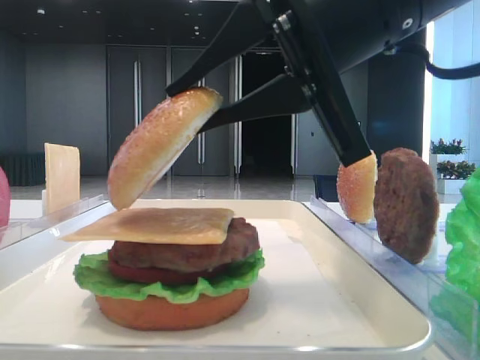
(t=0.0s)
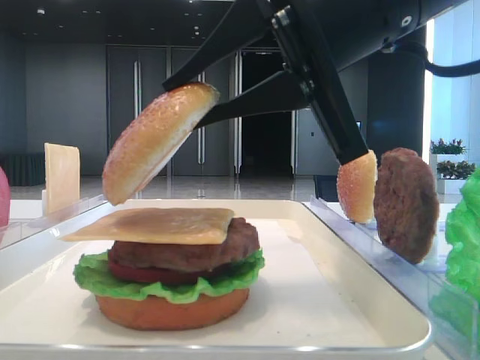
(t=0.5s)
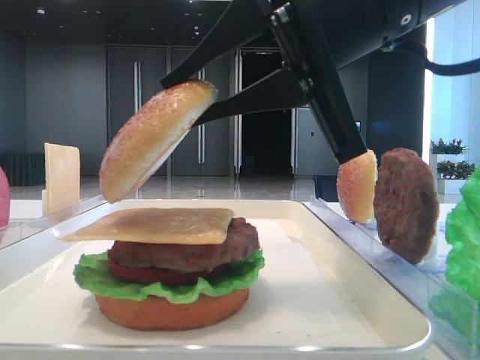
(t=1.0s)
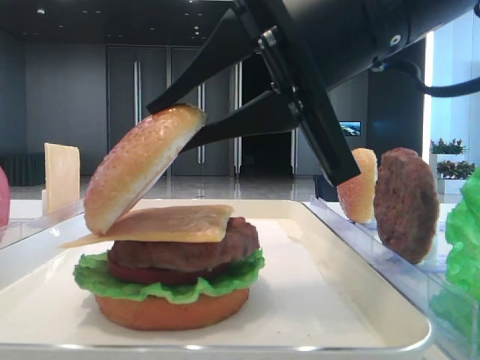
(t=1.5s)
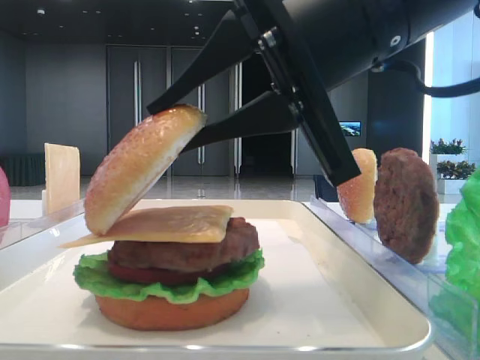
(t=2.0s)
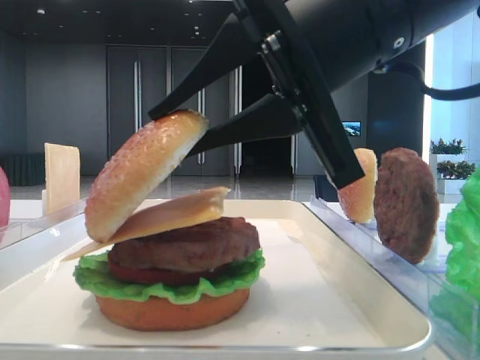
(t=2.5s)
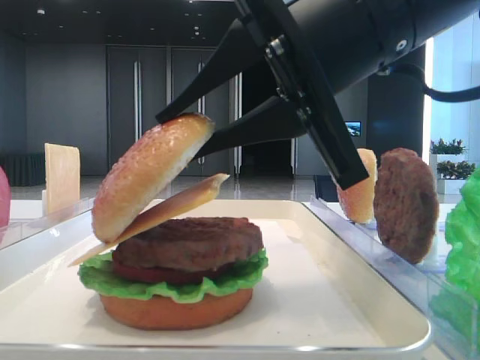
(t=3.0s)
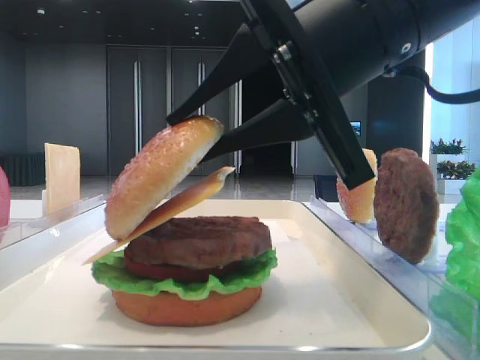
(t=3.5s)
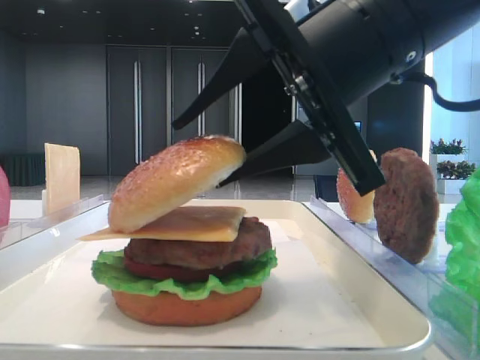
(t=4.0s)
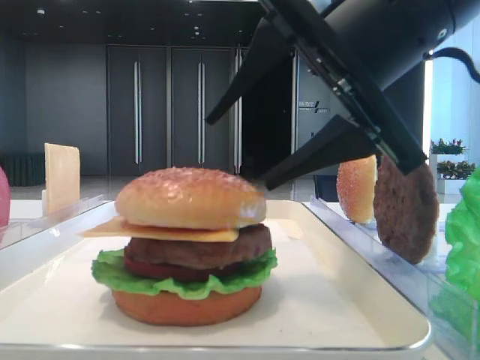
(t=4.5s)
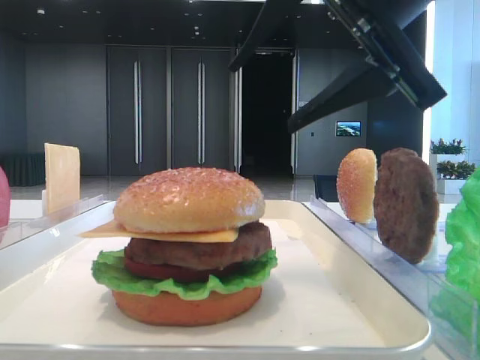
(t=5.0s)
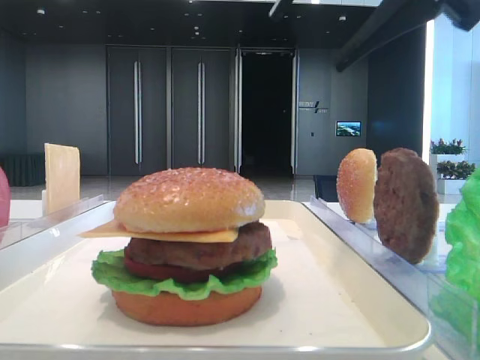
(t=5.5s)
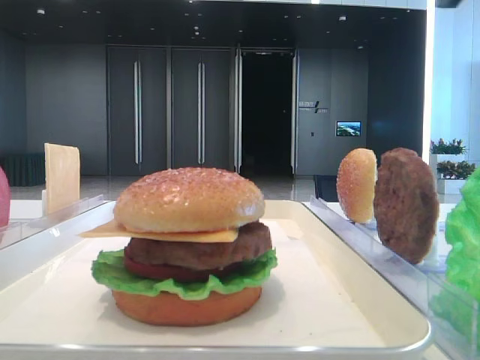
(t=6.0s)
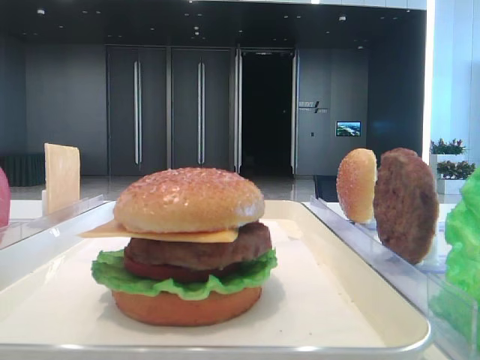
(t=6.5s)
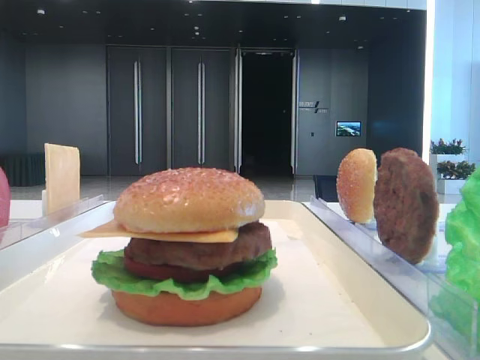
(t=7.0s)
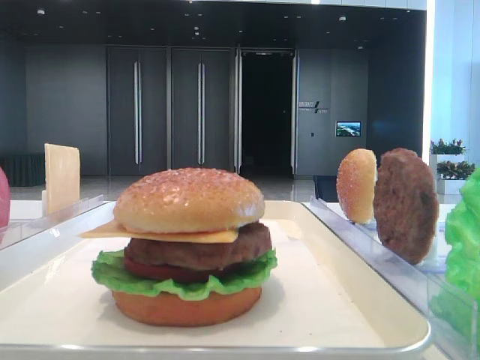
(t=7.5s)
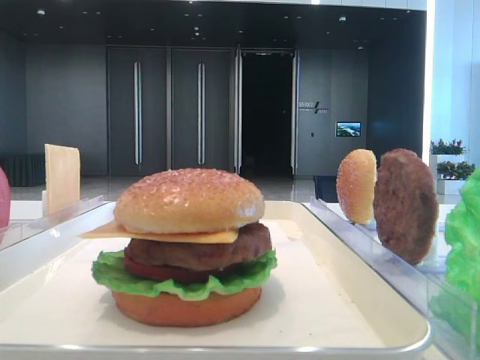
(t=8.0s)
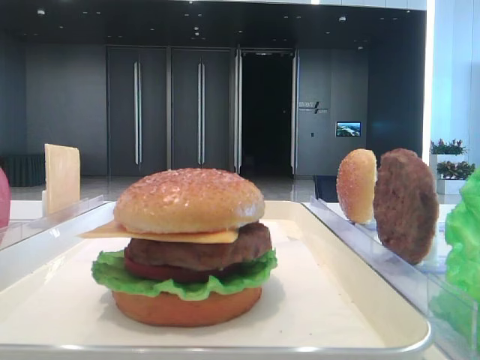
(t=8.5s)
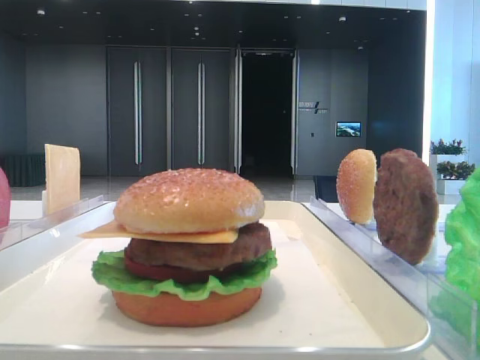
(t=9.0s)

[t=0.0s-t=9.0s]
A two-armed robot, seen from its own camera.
Step, t=0.0s to t=4.0s: Place the top bread slice on the cheese with the right hand.
t=0.0s to t=2.0s: The grippers stay close to where they were, moving slightly.
t=2.0s to t=4.5s: The right gripper opens.
t=4.5s to t=7.0s: The right gripper is displaced to the right and upward by some 25 cm.

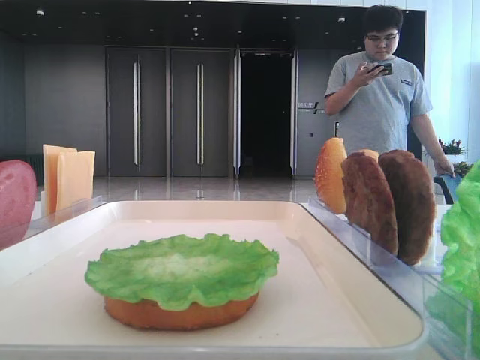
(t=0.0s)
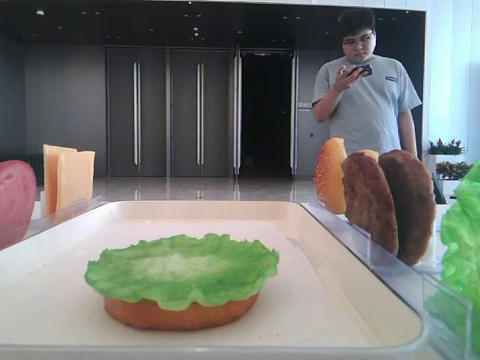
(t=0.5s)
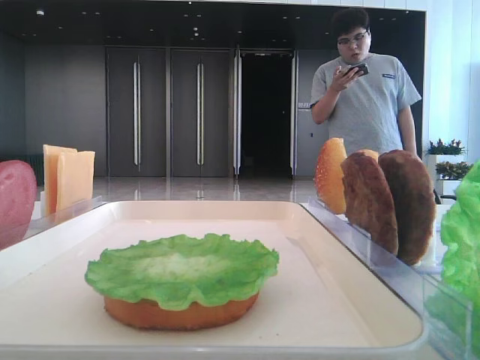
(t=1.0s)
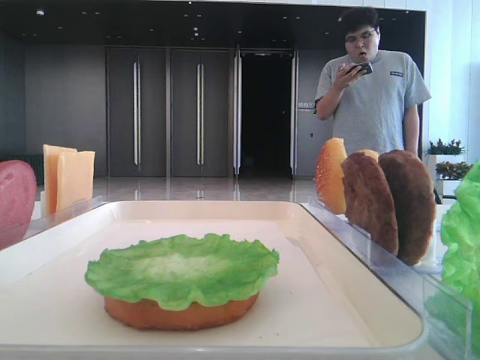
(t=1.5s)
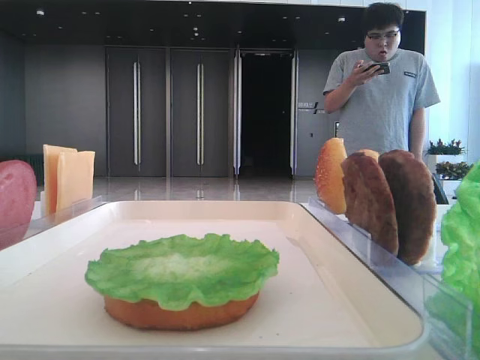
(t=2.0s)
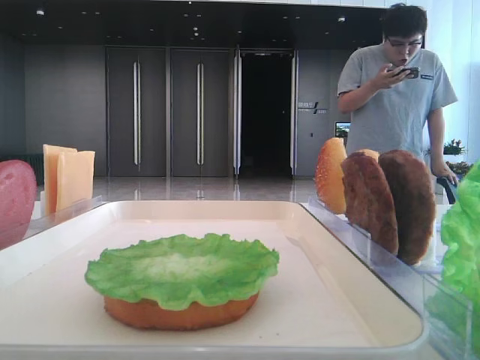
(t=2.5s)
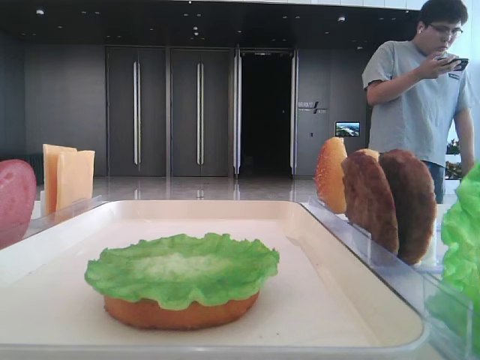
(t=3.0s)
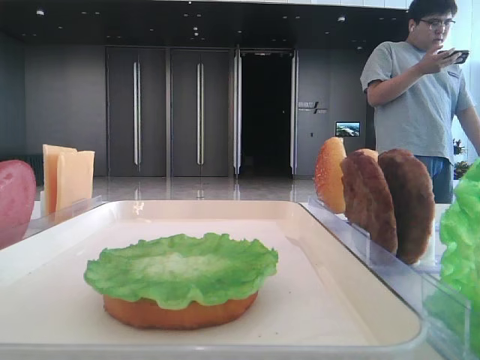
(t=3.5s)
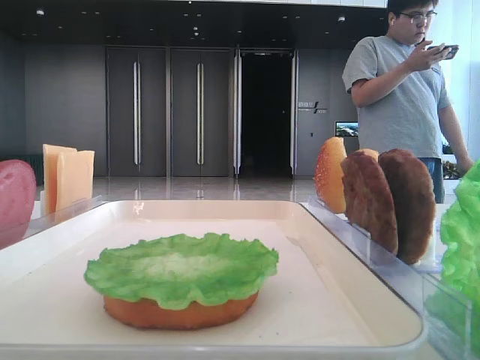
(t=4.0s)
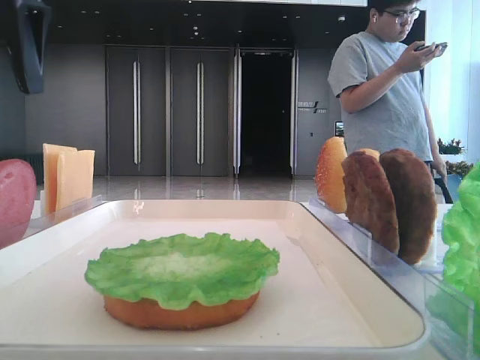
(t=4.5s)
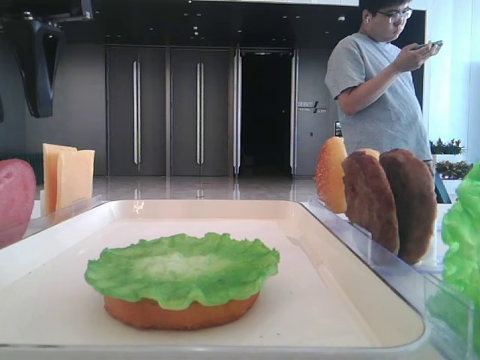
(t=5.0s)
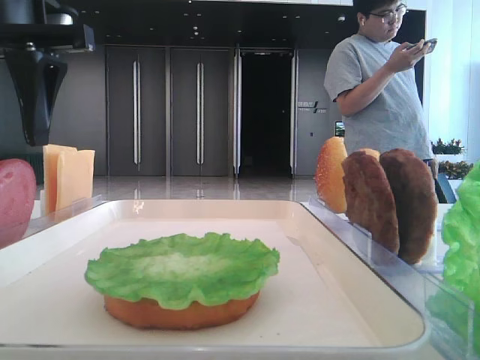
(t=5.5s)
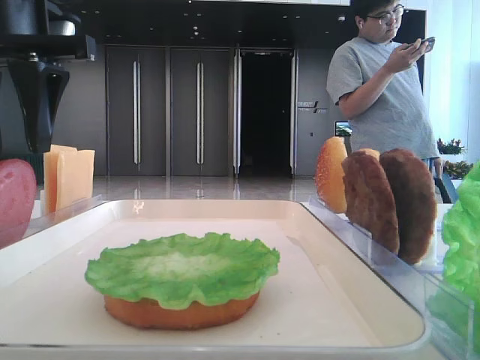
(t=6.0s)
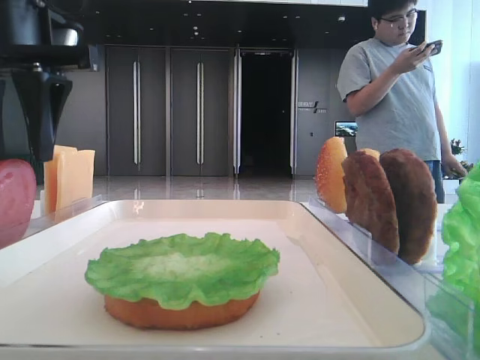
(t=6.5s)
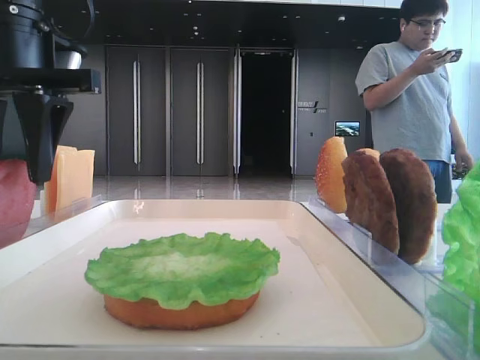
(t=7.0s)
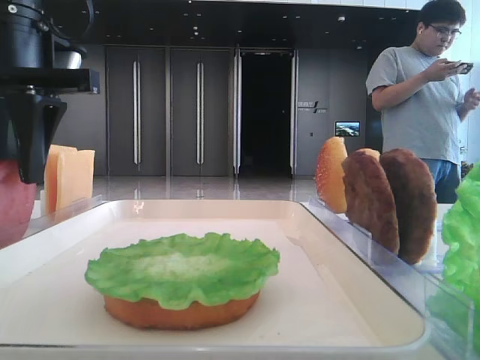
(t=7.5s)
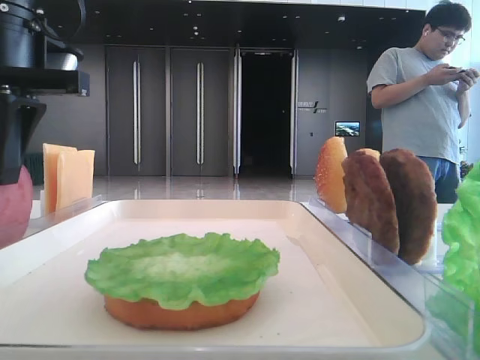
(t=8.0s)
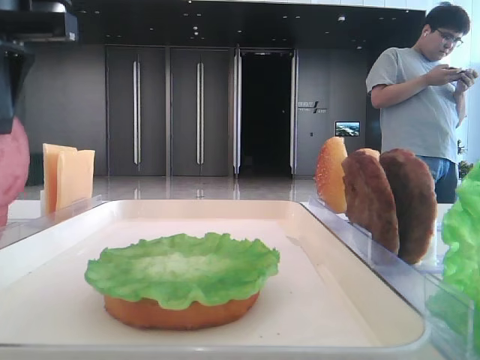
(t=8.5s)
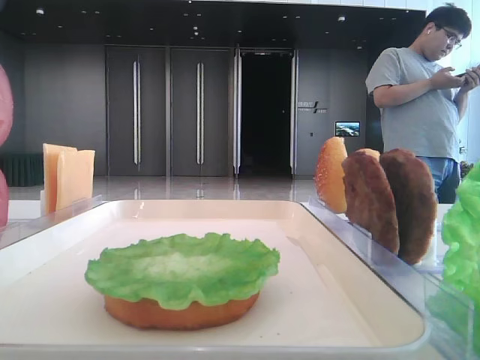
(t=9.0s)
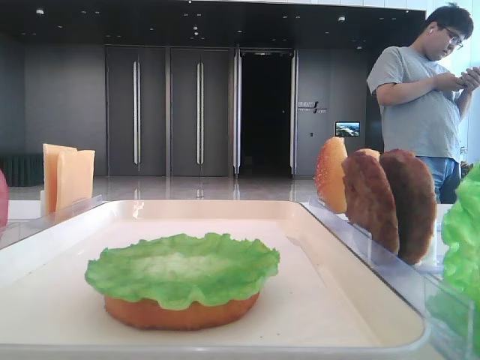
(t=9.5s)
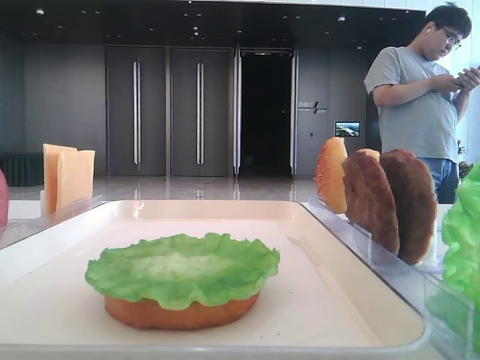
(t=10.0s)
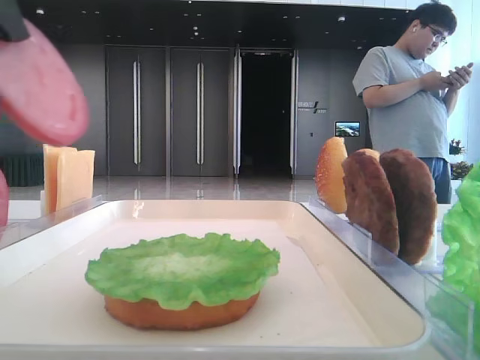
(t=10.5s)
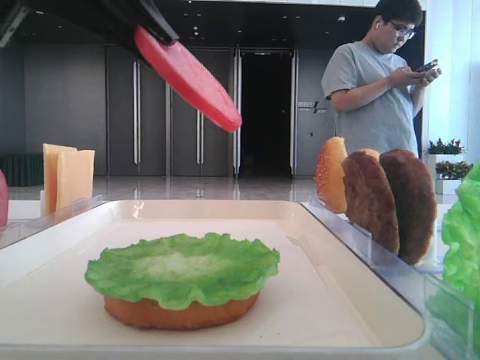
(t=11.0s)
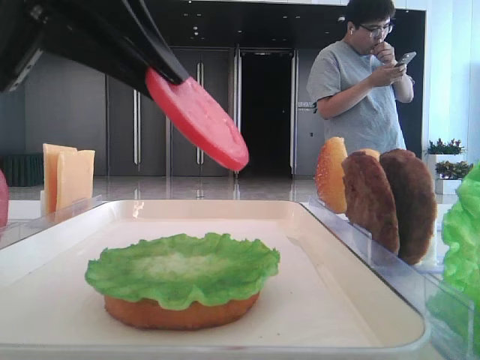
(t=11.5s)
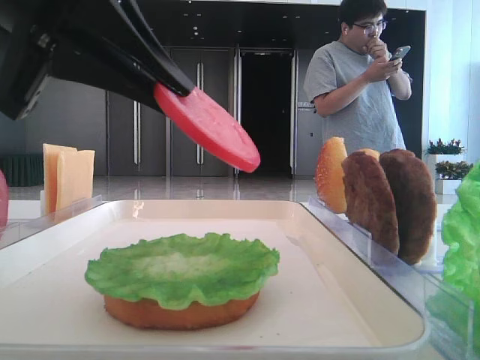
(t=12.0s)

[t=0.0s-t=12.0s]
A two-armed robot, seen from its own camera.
Step, t=0.0s to t=8.0s: Pick up the tomato slice with the left hand.
t=4.0s to t=6.0s: The left gripper travels to the right and downward by approximately 10 cm.
t=6.0s to t=8.0s: The left gripper closes its fingers.
t=8.0s to t=10.0s: The left gripper shifts roughly 15 cm backward and upward.
t=10.0s to t=12.0s: The left gripper shifts about 10 cm downward and to the right.

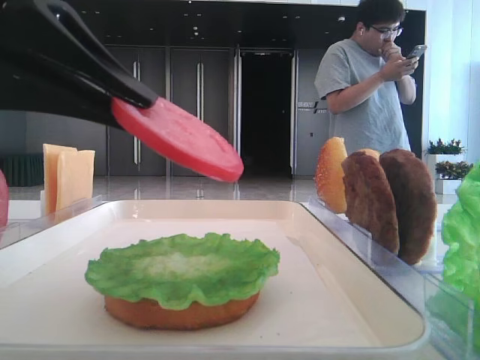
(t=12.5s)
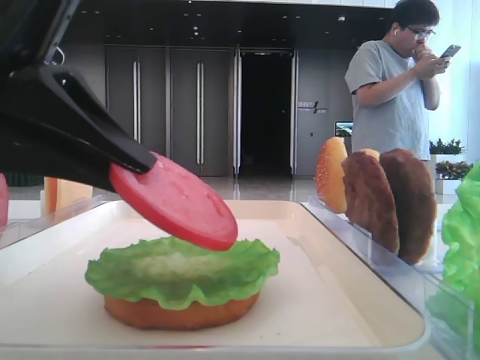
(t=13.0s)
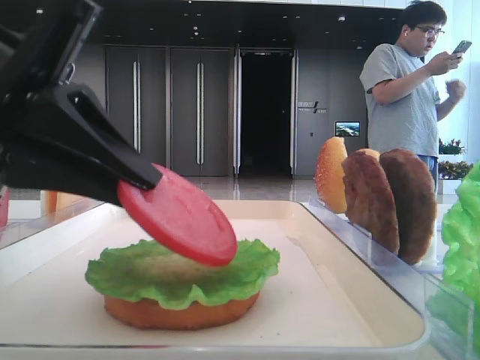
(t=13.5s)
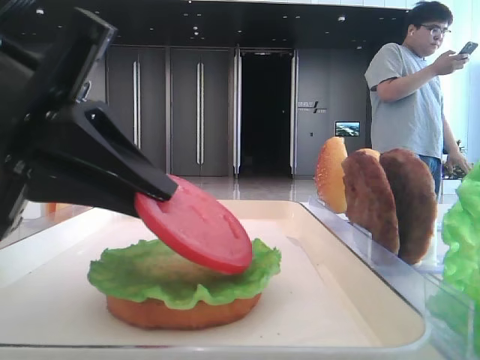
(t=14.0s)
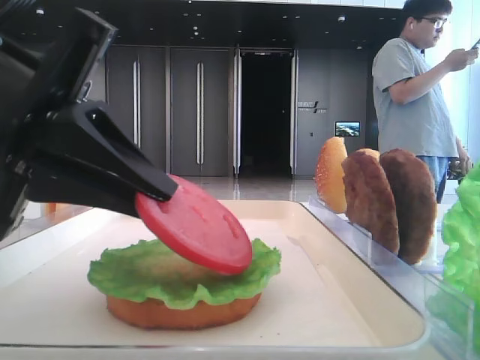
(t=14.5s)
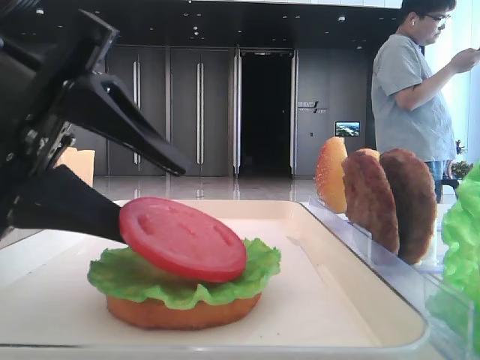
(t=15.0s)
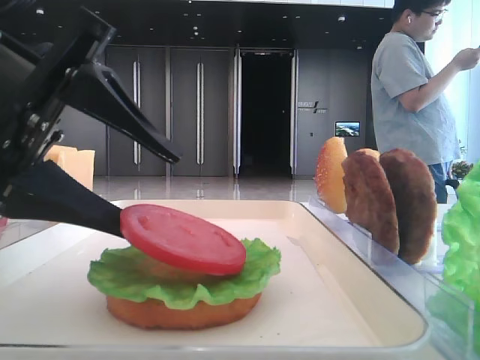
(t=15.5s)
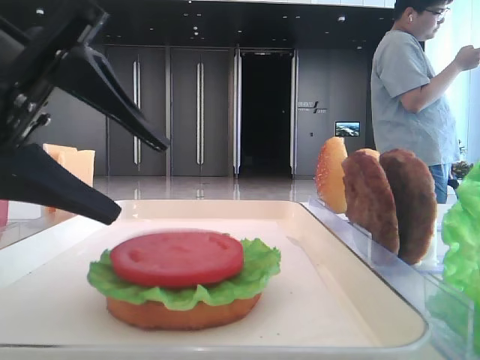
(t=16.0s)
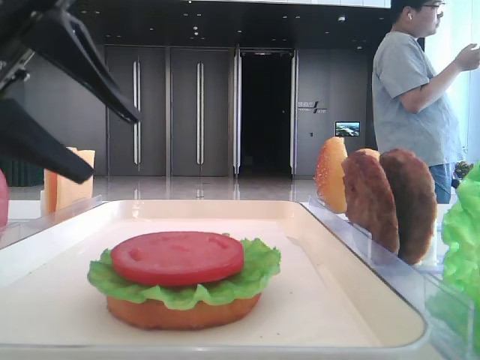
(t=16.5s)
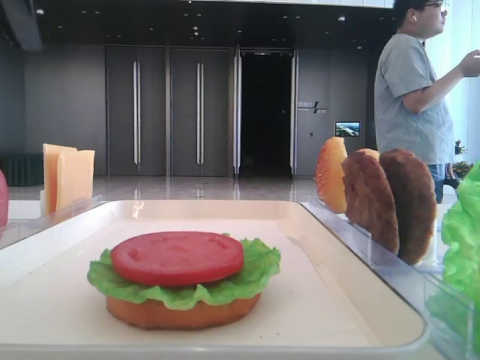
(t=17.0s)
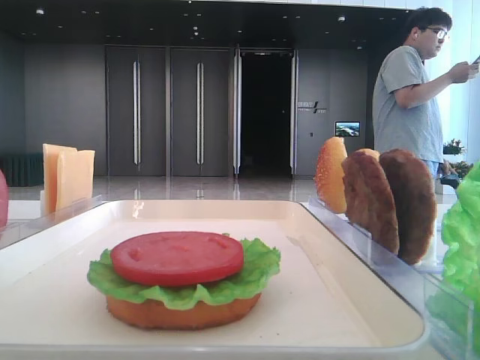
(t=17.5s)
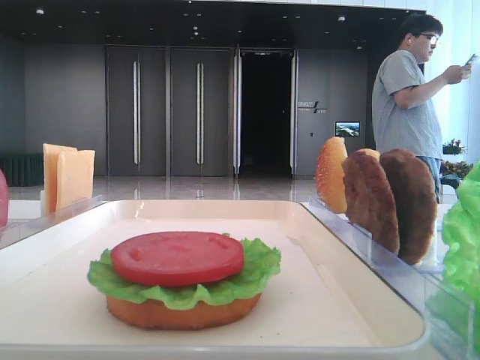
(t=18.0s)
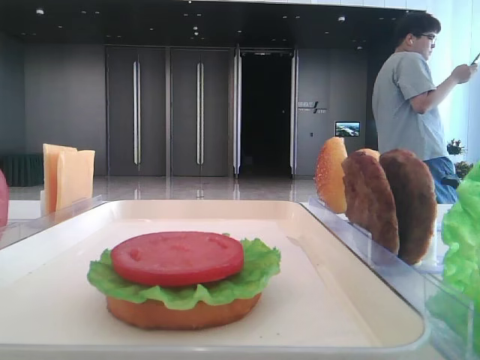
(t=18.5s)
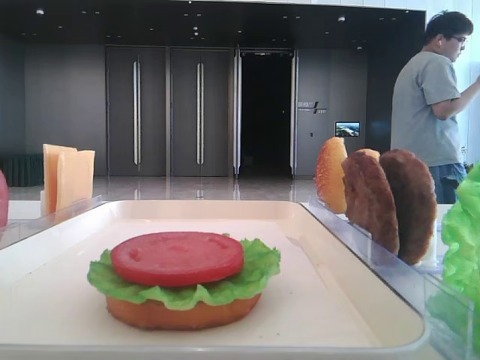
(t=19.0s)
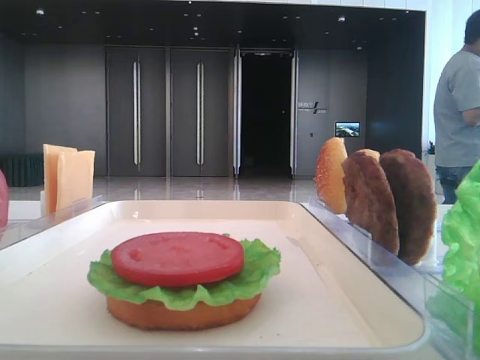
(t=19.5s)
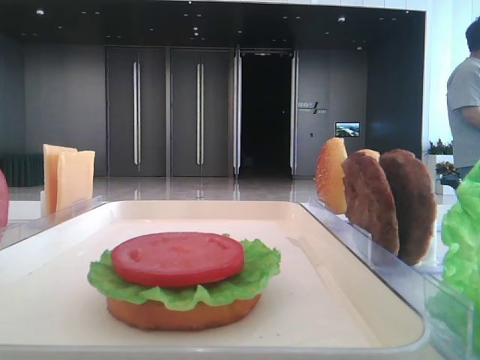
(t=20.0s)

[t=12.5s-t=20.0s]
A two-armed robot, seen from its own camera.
Step, t=12.5s to t=15.5s: Place the tomato slice on the lettuce leaf with the left hand.
t=12.5s to t=14.5s: The left gripper shifts by roughly 5 cm.
t=14.5s to t=16.5s: The left gripper goes about 5 cm upward, and opens up.
t=16.5s to t=18.0s: The left gripper goes roughly 20 cm to the left and upward.
